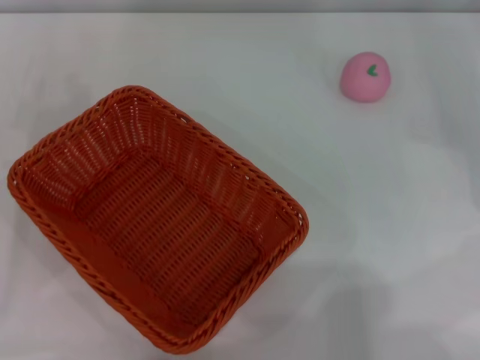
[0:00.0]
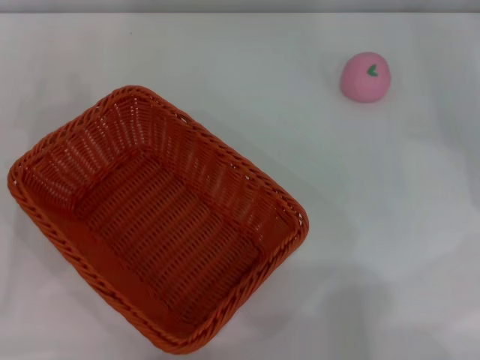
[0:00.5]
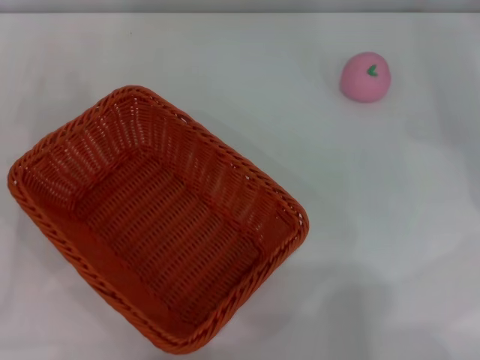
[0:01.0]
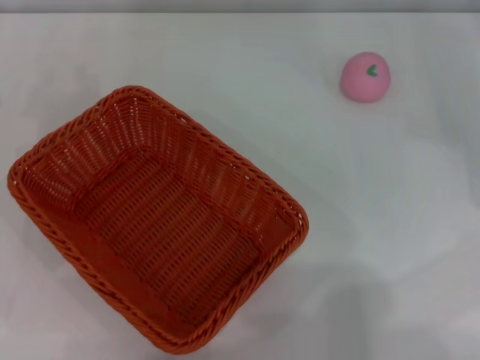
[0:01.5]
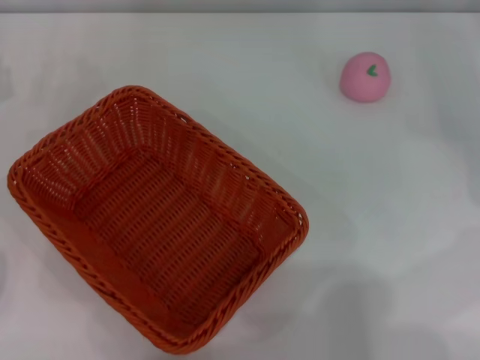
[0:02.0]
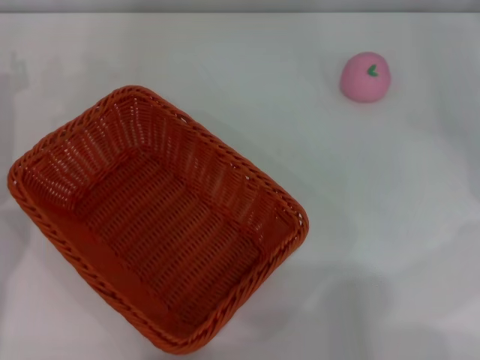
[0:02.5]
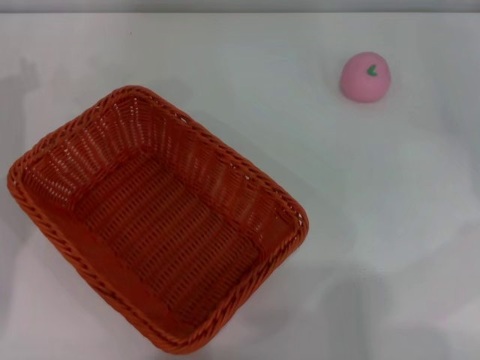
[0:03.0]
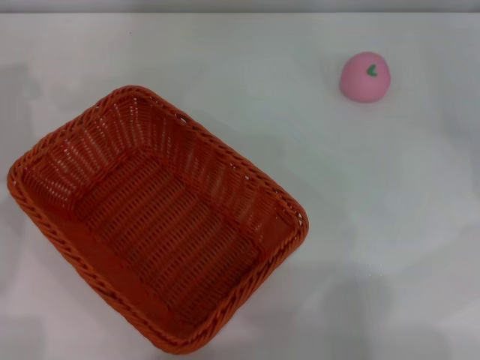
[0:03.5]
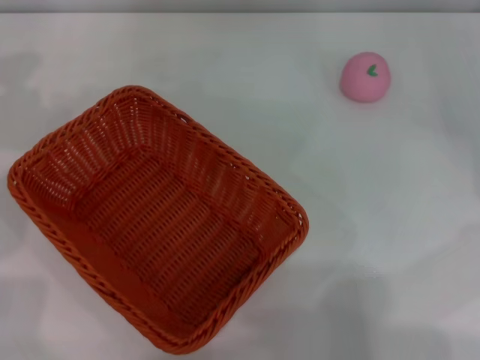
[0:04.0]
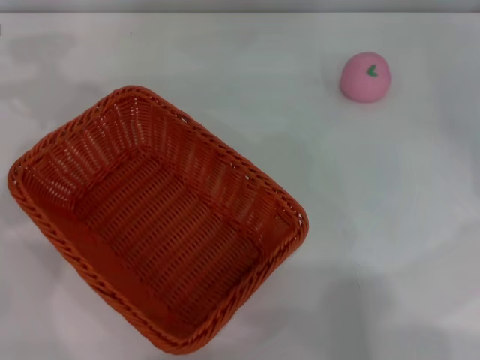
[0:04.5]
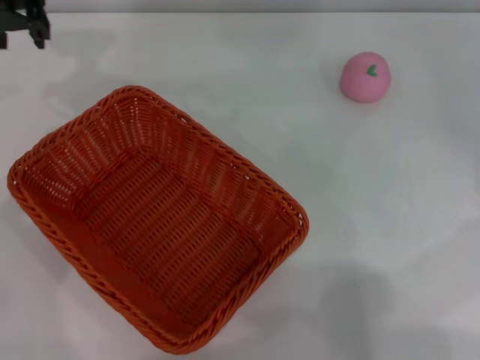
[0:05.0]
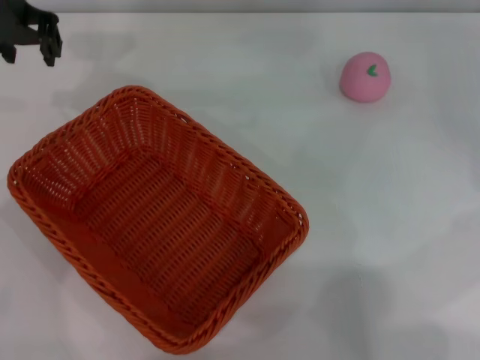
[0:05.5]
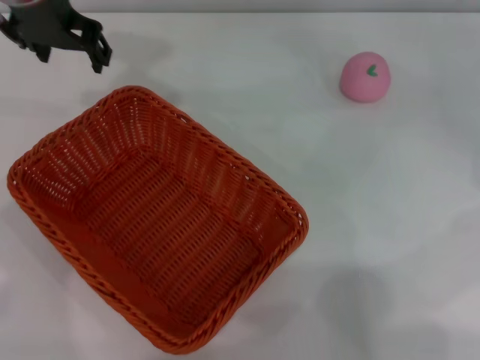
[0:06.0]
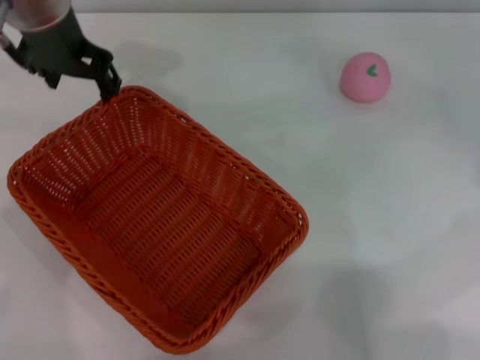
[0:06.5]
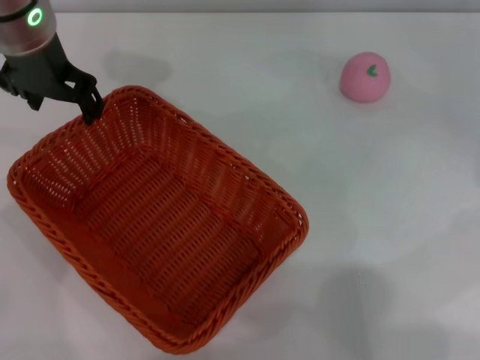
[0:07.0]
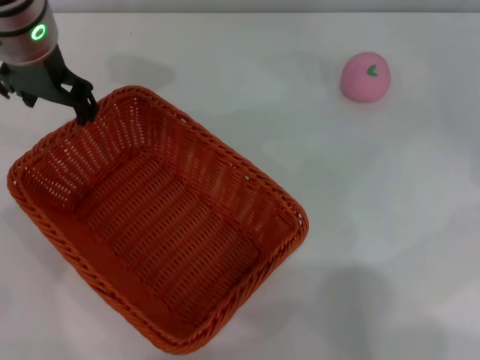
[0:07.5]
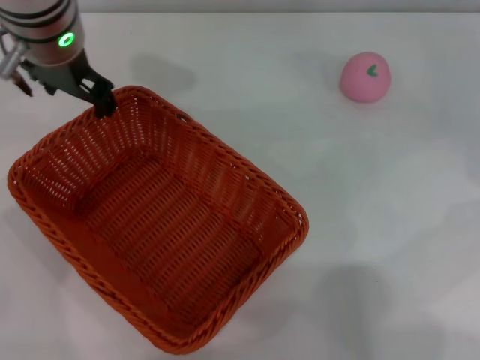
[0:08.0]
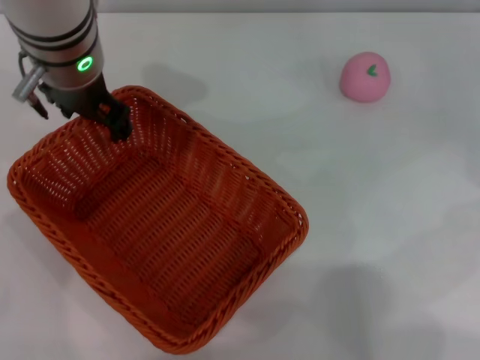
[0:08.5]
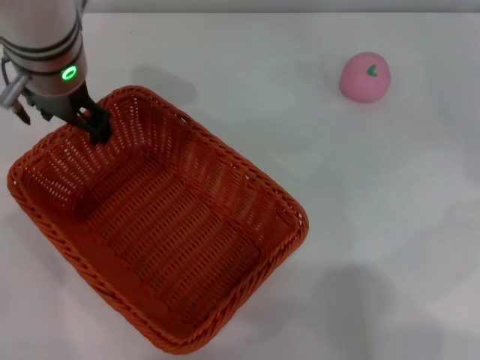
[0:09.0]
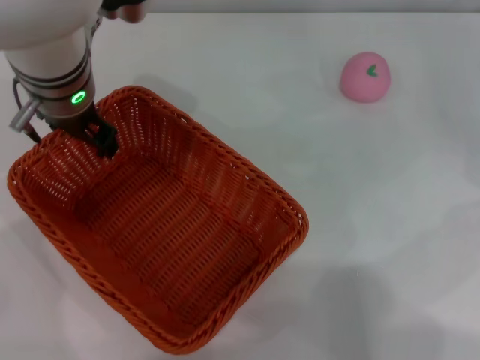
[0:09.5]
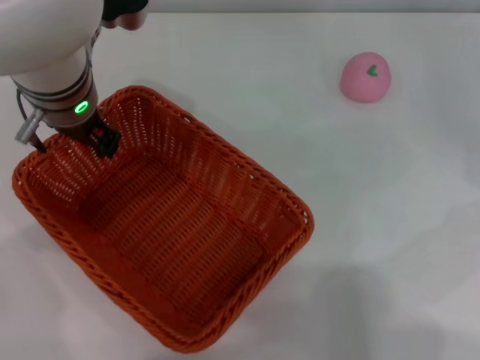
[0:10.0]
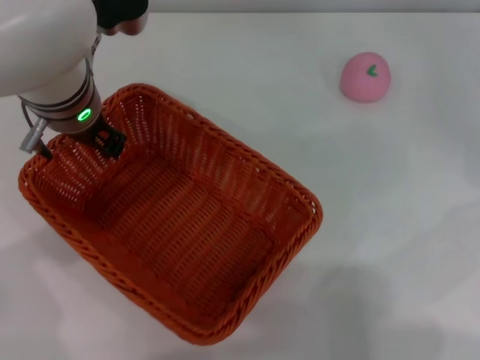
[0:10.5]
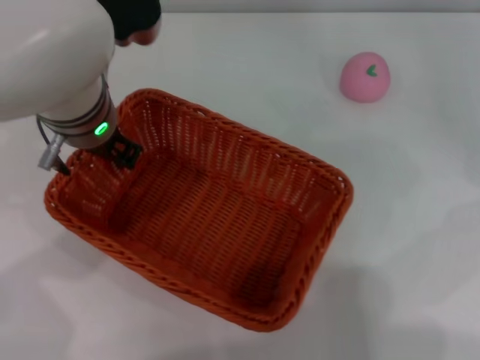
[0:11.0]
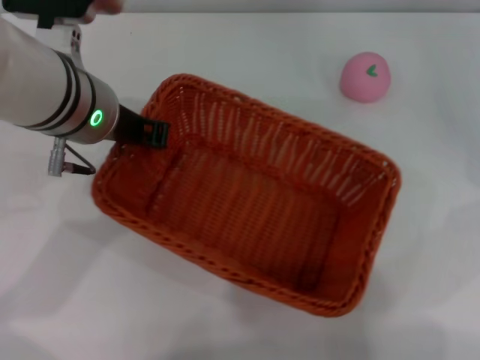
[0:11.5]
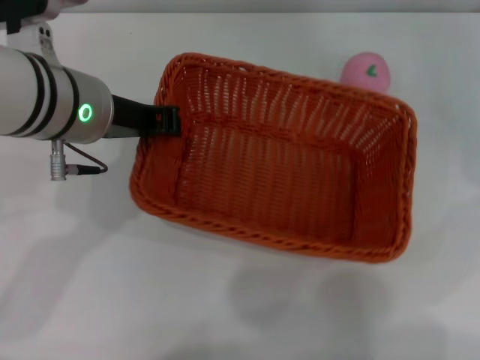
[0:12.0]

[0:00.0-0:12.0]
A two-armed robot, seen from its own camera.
Step, 0:00.0 to 0:10.5: Pick up the light basket with the left gripper.
0:04.0 to 0:06.0: The left gripper travels to the right by roughly 15 cm.
0:06.0 to 0:08.0: The left gripper moves about 5 cm.
0:08.0 to 0:10.0: The left gripper ends up roughly 5 cm from where it was.
0:10.0 to 0:12.0: The left gripper closes.

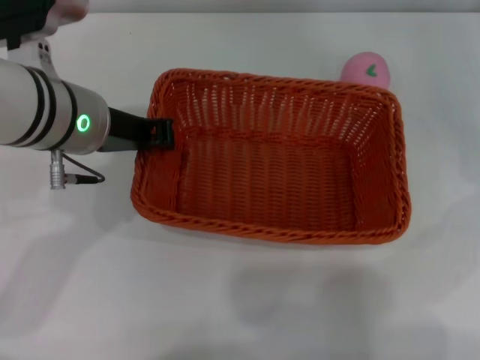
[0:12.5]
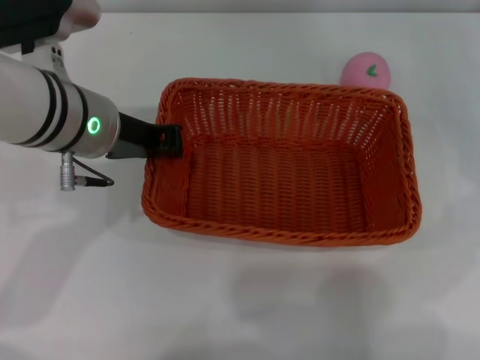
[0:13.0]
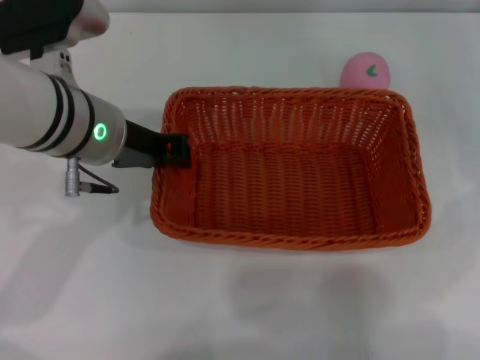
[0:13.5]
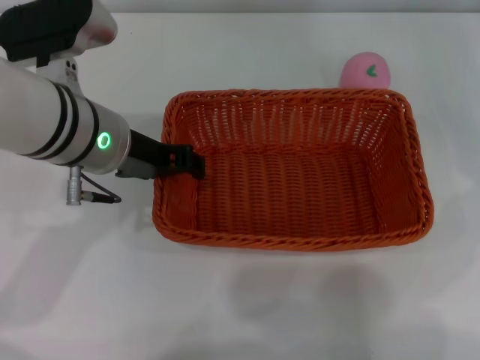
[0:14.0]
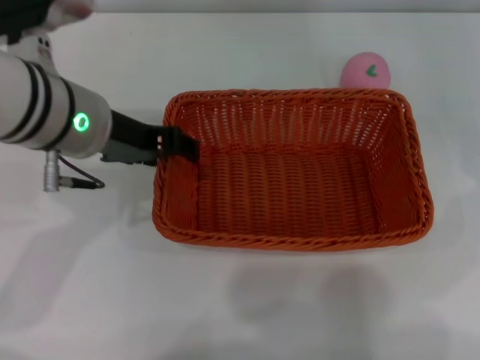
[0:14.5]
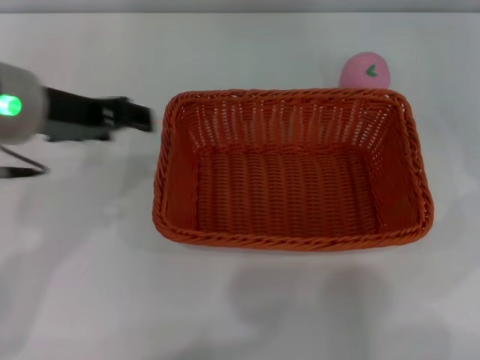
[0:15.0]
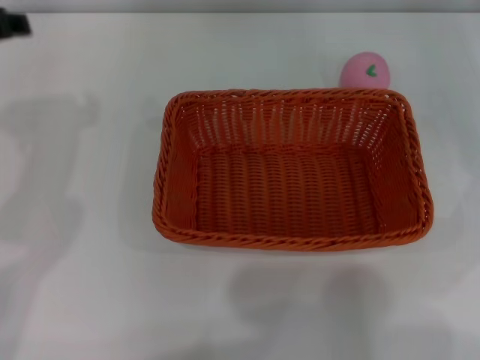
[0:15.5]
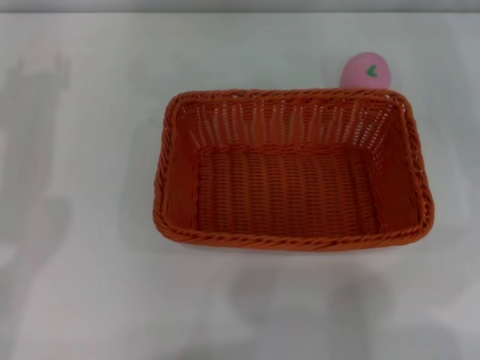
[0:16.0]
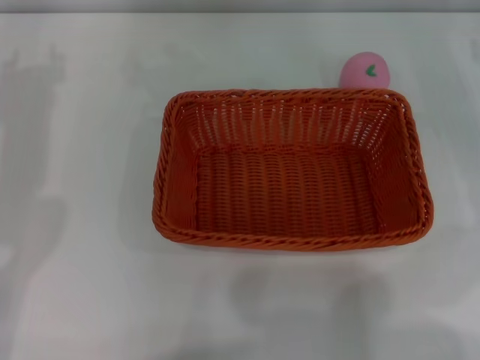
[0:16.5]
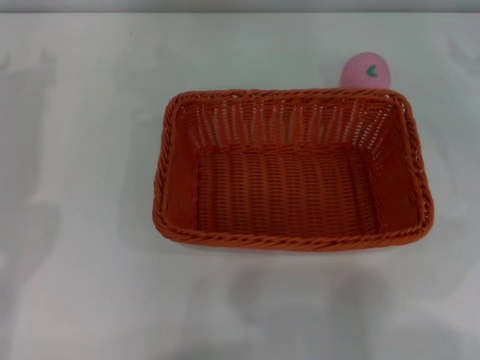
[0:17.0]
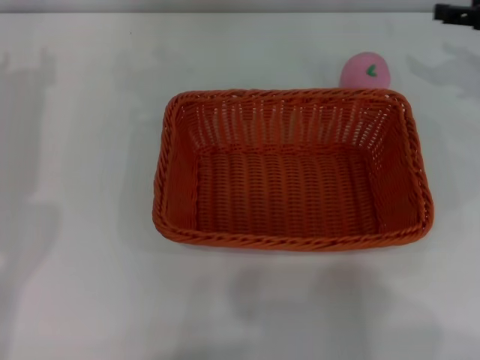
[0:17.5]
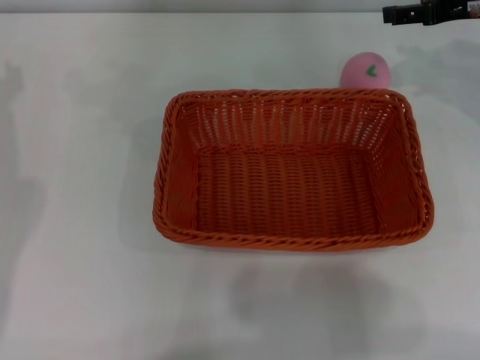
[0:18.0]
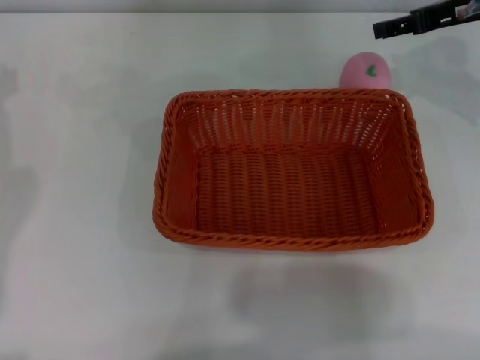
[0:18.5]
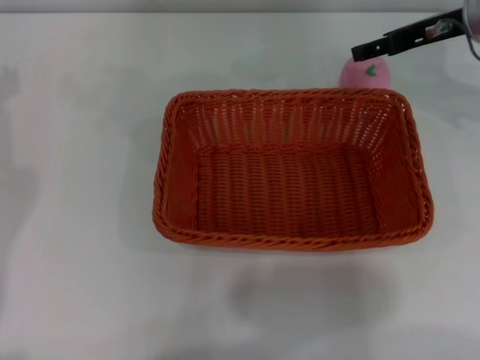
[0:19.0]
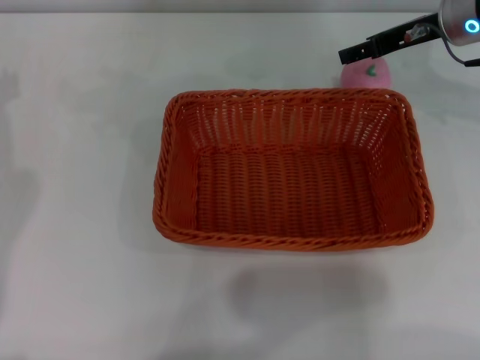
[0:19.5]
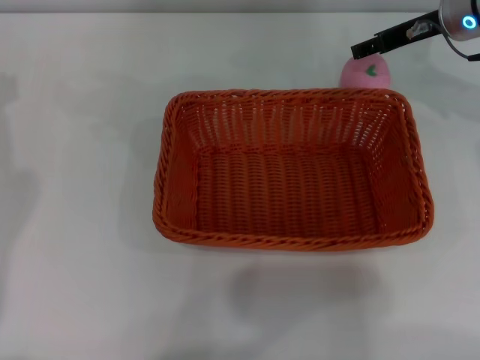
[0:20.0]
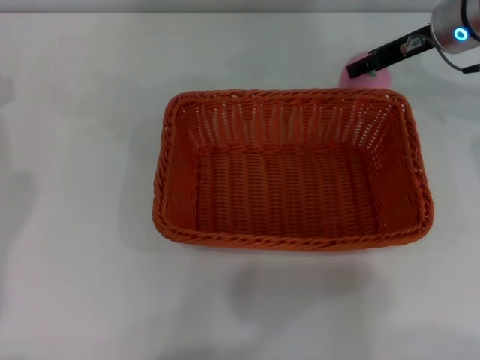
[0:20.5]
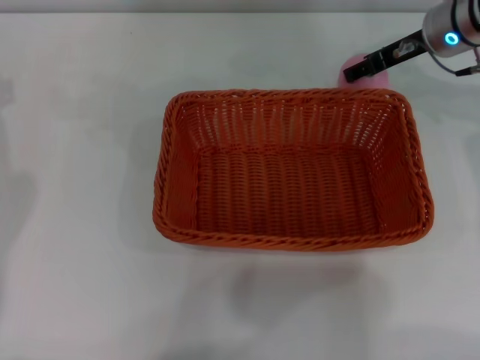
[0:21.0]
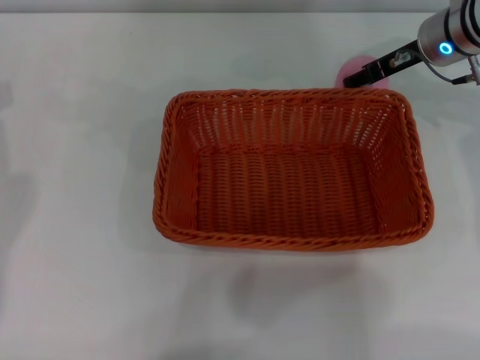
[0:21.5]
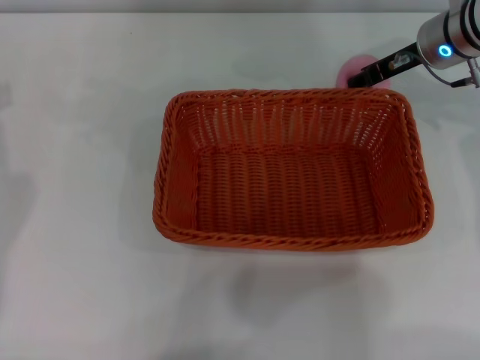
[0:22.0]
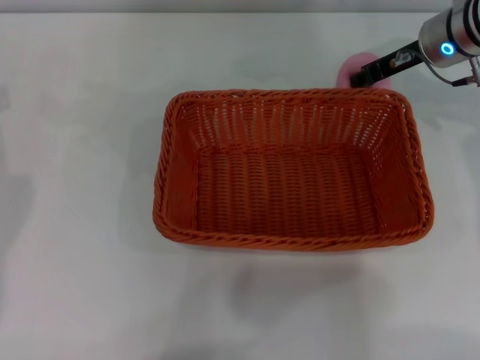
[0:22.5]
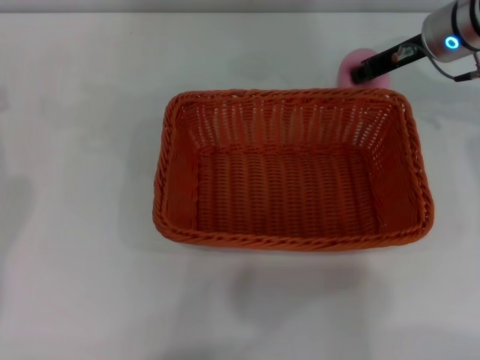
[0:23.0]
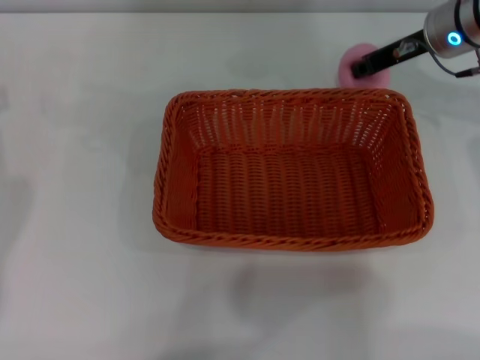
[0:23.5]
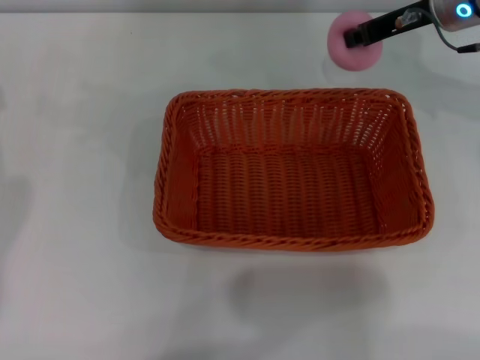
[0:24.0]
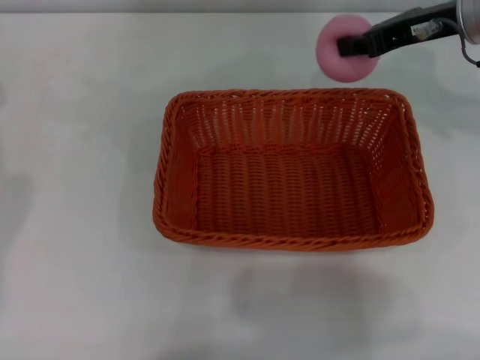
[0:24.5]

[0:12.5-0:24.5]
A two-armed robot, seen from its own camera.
Step, 0:12.5 to 0:14.5: Place the light basket in the center of view with the right gripper.
Step, 0:15.0 to 0:24.0: Pick up the peach with the left gripper.
0:12.5 to 0:14.5: The left gripper opens its fingers.
0:14.5 to 0:16.5: The left gripper travels to the left by roughly 10 cm.
0:16.5 to 0:18.5: The right gripper travels to the left and upward by about 15 cm.
0:18.5 to 0:20.5: The right gripper shifts by about 5 cm.
0:20.5 to 0:22.5: The right gripper closes its fingers.
0:22.5 to 0:24.5: The right gripper travels upward by some 5 cm, and closes its fingers.

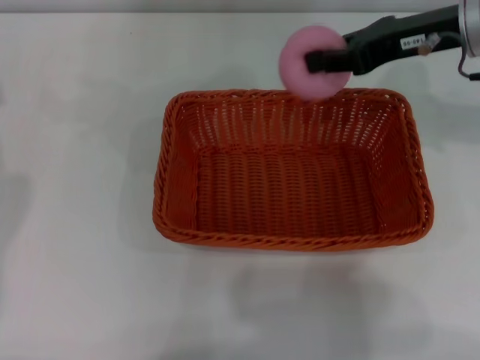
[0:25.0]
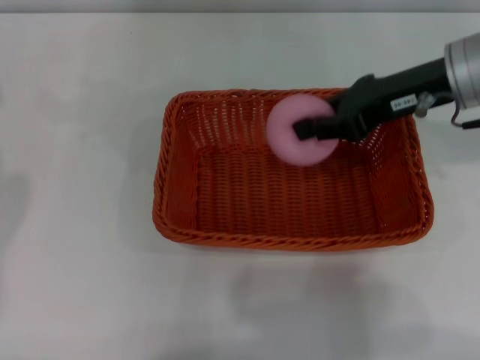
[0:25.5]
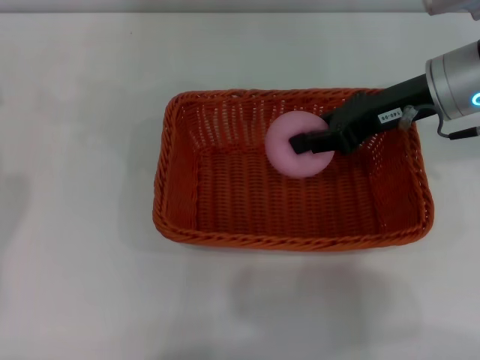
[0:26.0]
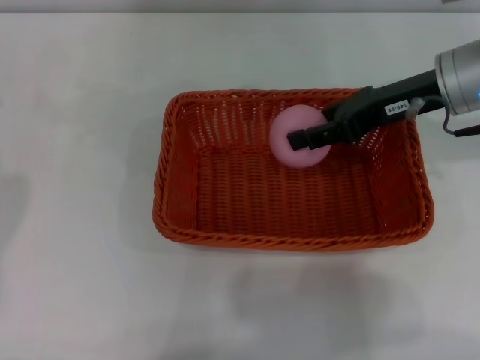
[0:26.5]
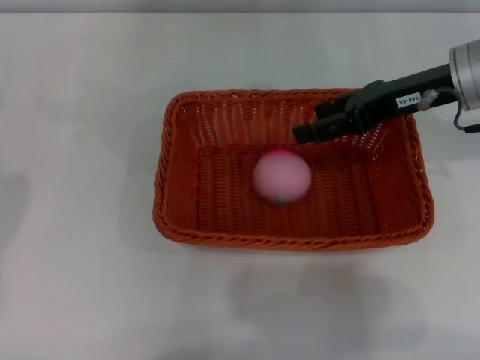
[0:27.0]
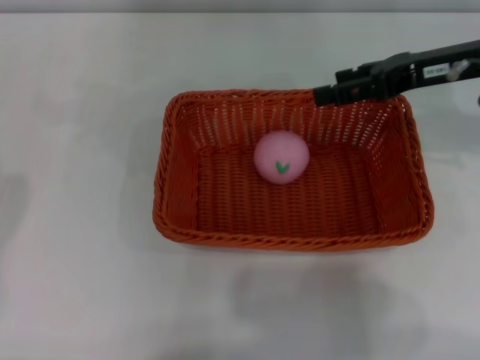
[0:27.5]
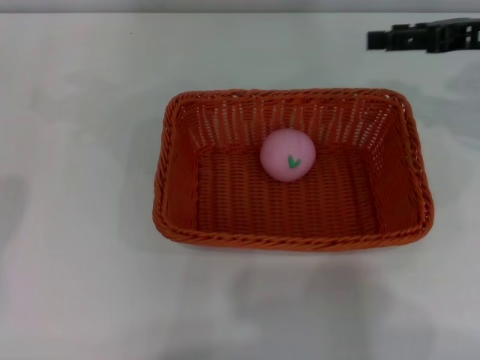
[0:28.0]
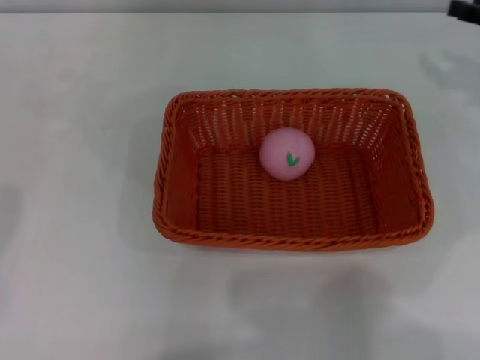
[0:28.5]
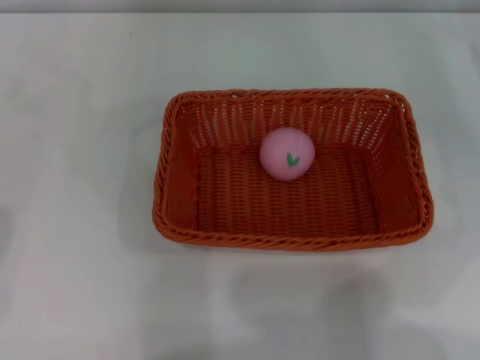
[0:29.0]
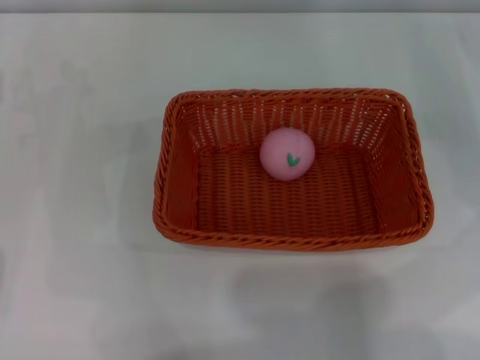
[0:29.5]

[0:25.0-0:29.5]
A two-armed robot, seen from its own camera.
0:25.0 to 0:27.0: The right gripper opens.
0:27.0 to 0:29.5: The left gripper travels downward by about 15 cm; the right gripper goes some 20 cm to the right and downward, and closes.
